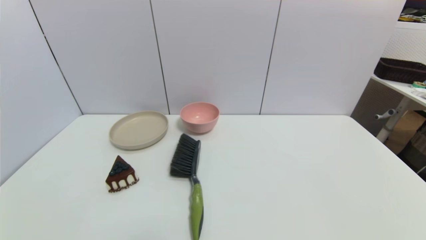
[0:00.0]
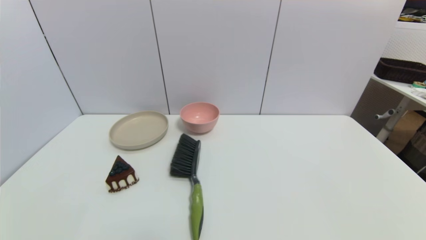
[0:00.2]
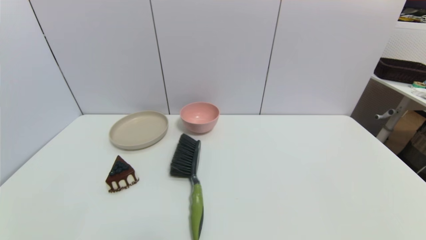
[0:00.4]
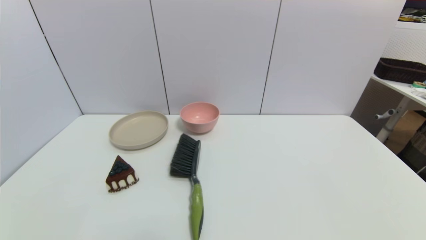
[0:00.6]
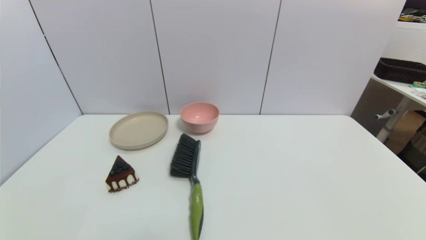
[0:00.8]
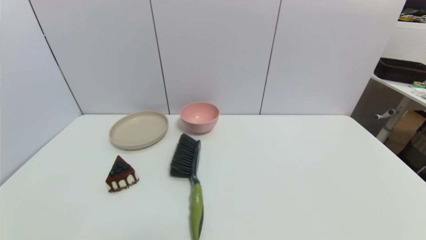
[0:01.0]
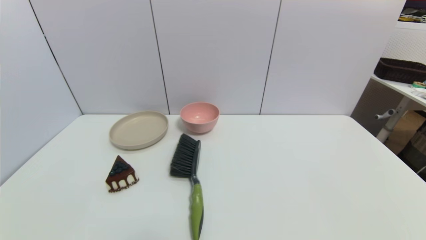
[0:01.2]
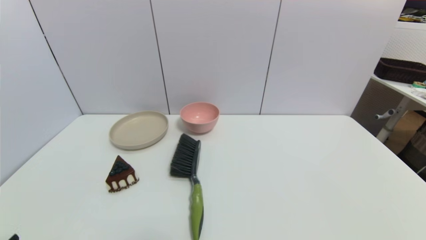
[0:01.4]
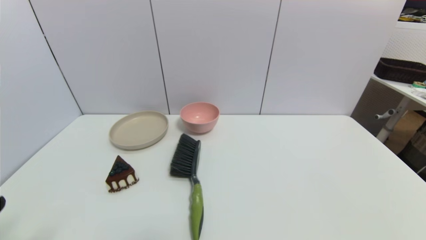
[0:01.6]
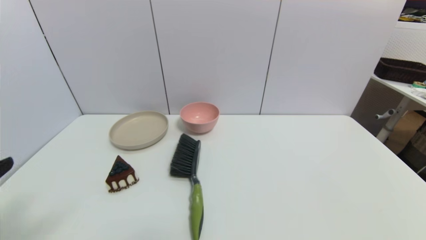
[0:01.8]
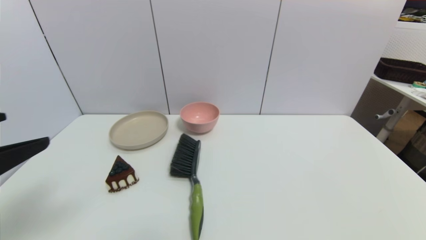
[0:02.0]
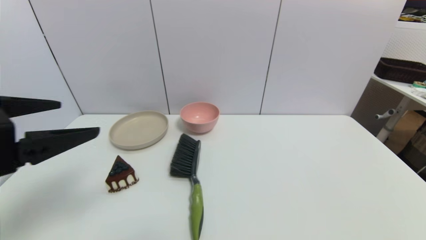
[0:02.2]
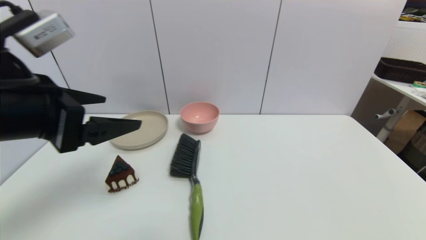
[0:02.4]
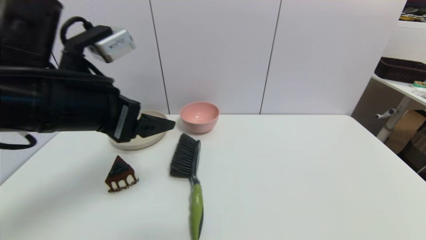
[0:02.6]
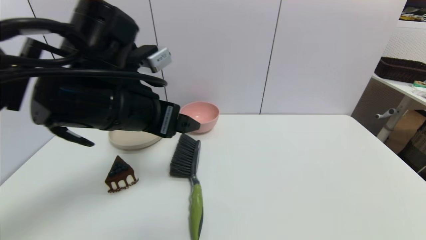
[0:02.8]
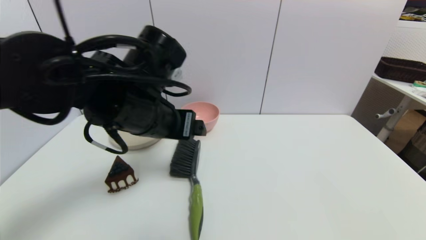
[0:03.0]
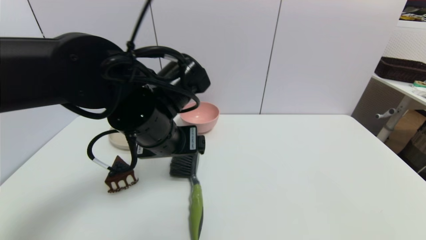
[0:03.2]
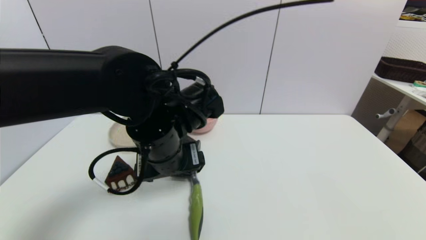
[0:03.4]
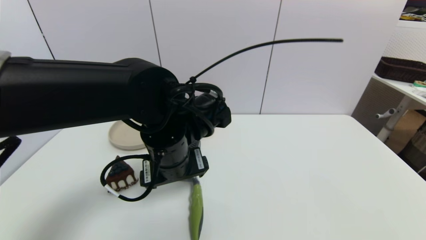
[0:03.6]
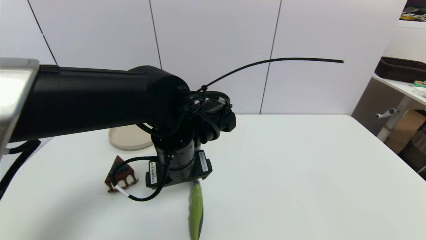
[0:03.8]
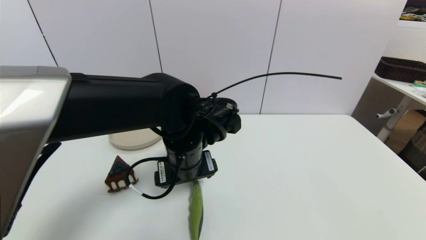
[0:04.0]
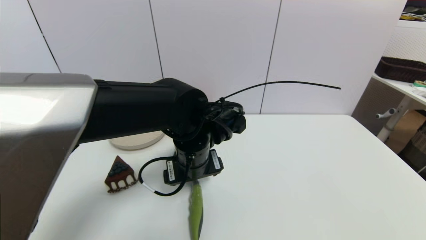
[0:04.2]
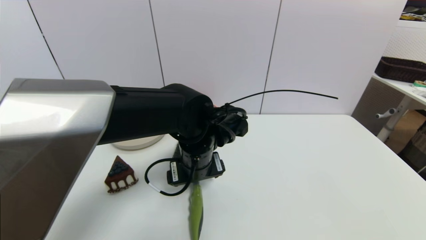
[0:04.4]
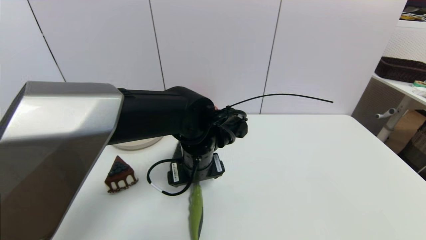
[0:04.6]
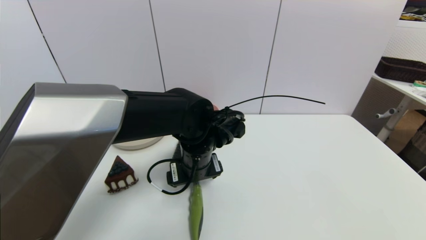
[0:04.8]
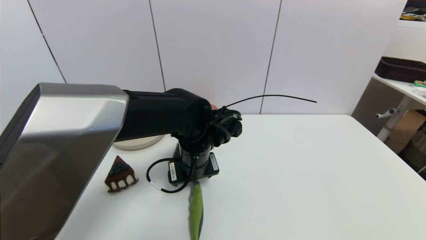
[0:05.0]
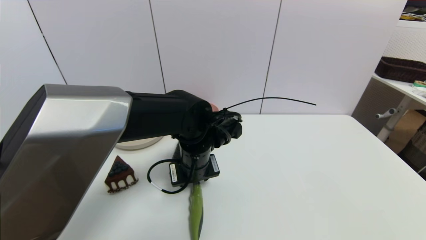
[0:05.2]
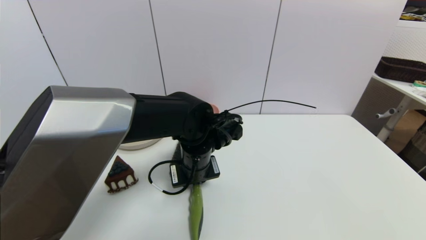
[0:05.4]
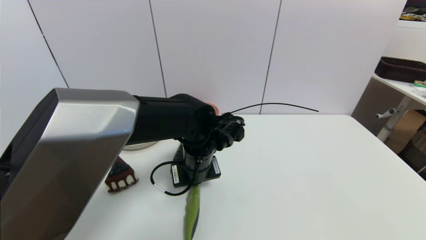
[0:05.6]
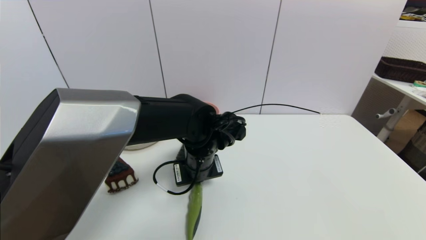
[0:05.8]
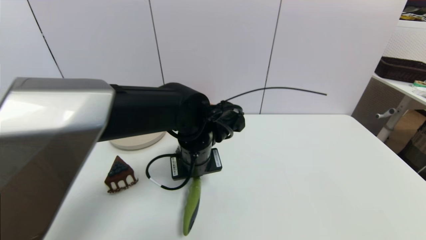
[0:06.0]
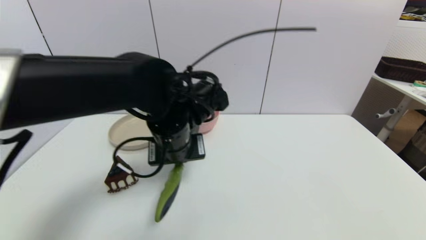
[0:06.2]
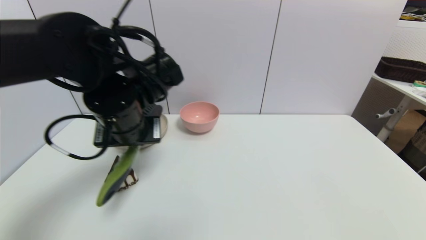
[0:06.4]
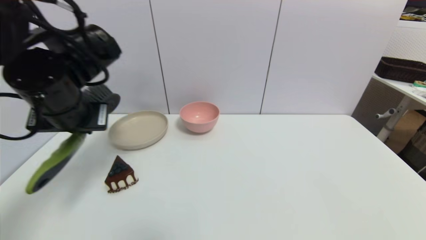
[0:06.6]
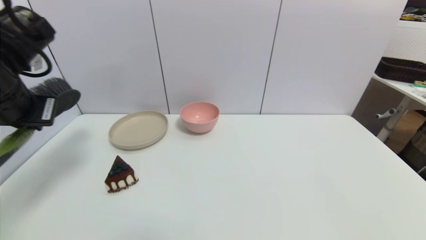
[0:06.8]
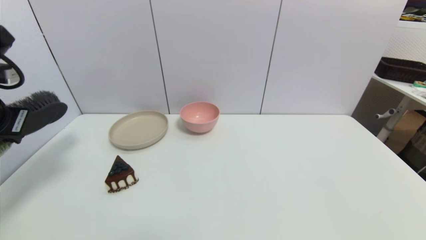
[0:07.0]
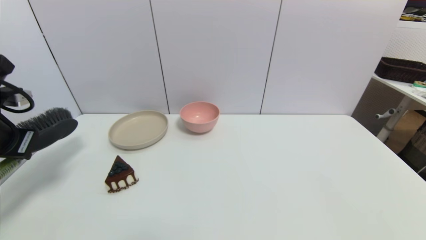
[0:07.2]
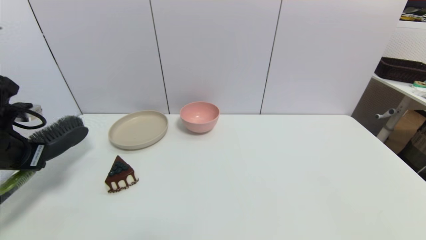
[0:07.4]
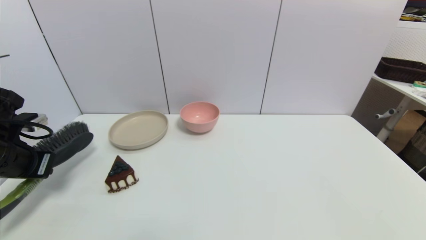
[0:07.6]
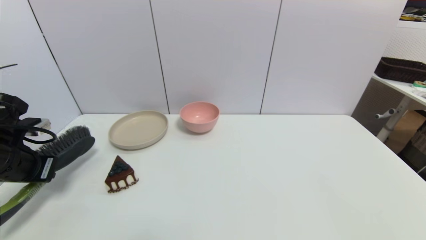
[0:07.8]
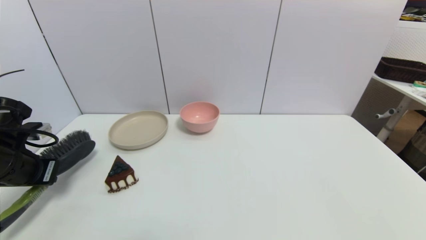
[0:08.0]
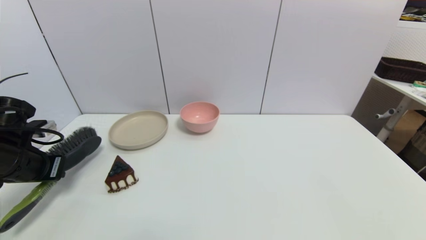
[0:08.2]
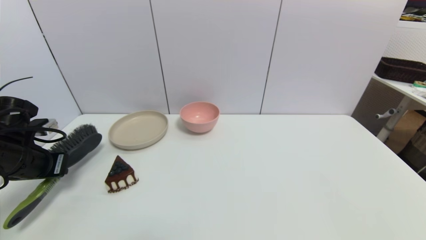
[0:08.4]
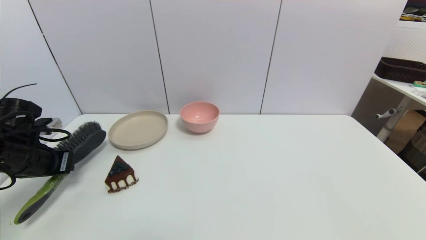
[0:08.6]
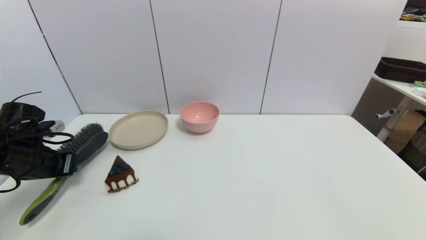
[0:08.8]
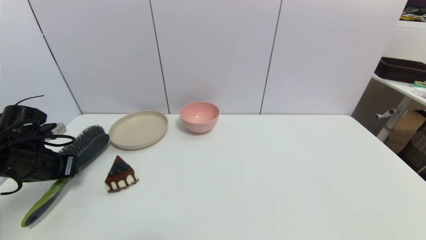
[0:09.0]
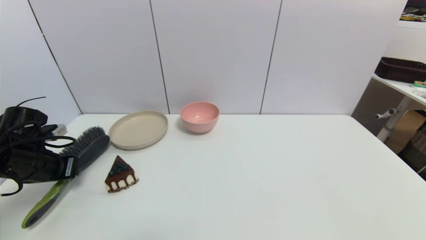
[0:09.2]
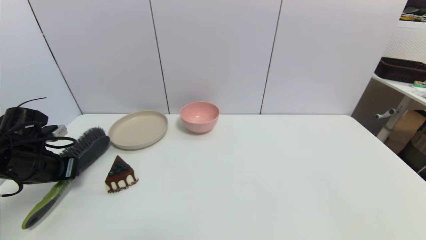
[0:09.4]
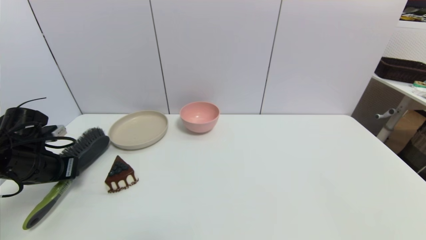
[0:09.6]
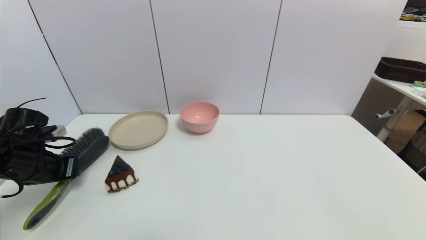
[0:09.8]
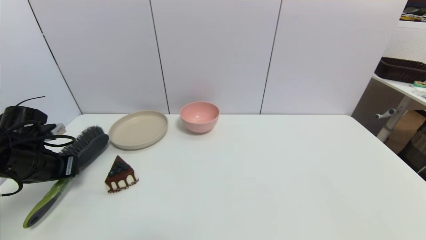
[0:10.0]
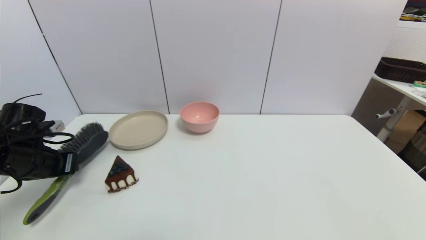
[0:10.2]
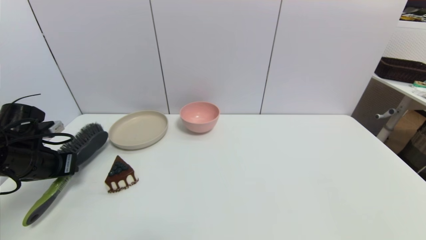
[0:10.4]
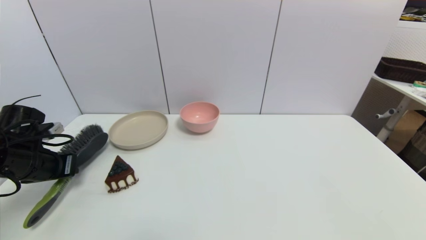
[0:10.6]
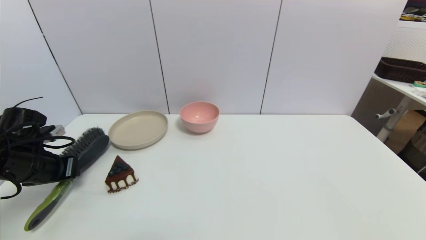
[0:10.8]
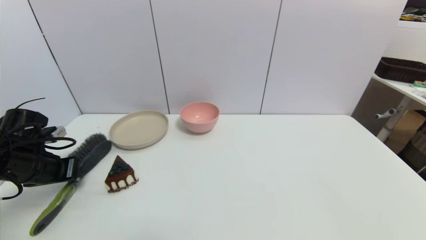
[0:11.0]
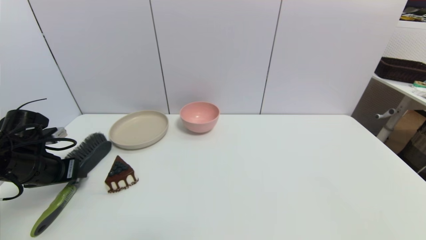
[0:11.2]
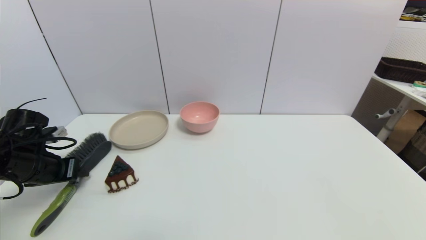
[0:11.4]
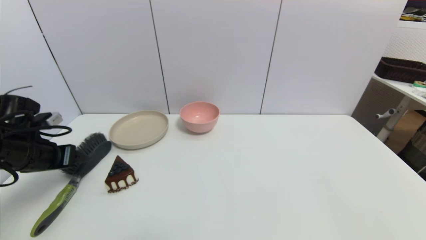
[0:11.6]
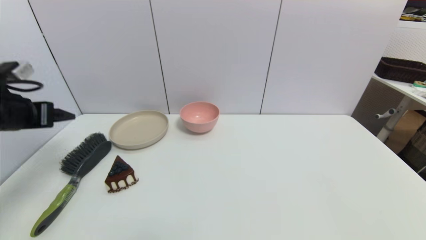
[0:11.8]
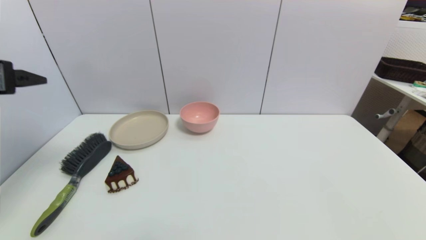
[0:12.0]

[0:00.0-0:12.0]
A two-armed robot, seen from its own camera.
Task of the whole recording: put the brush in the designated position.
Step, 0:01.4 to 0:05.4: Grasp the brush with left gripper.
Step, 0:05.8 to 0:11.2: Place the brush on the table with left gripper.
0:01.6 to 0:03.0: The left gripper travels forward and to the right by some 30 cm.
0:03.0 to 0:04.4: The left gripper goes roughly 15 cm downward and to the right.
0:04.4 to 0:06.0: The left gripper closes.
0:06.0 to 0:07.6: The left gripper heads to the left, covering roughly 30 cm.
0:07.6 to 0:09.0: The left gripper moves downward, some 5 cm.
0:09.0 to 0:10.4: Neither gripper changes place.
0:10.4 to 0:12.0: The left gripper goes approximately 20 cm upward, and opens up.

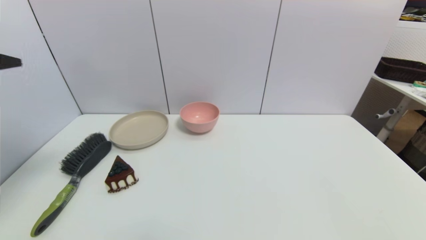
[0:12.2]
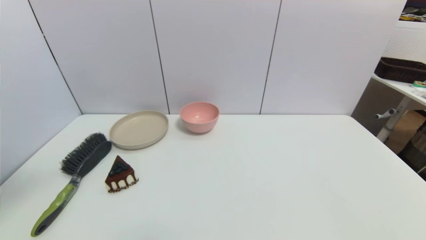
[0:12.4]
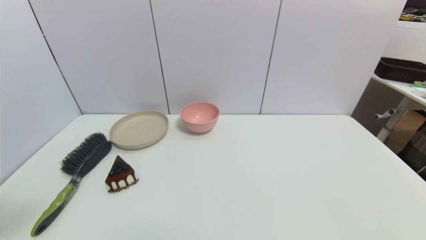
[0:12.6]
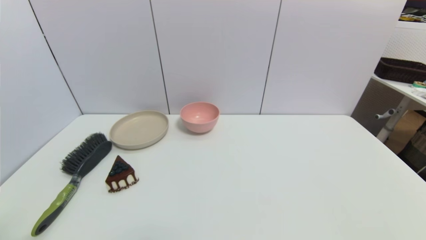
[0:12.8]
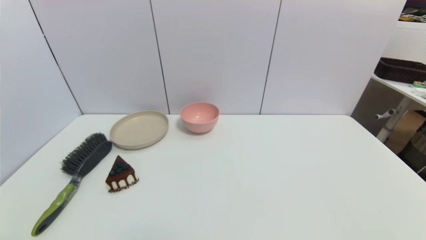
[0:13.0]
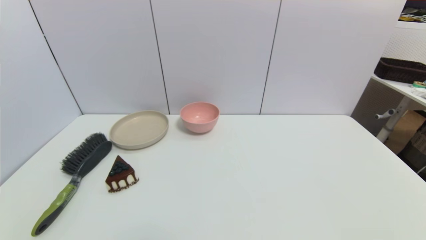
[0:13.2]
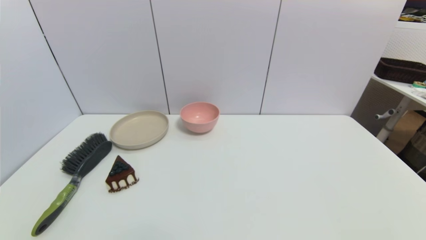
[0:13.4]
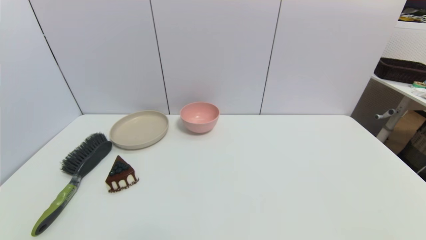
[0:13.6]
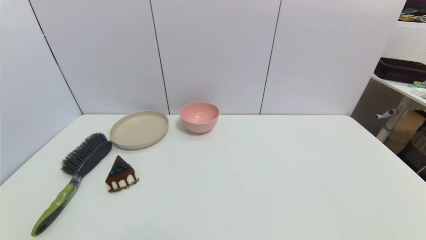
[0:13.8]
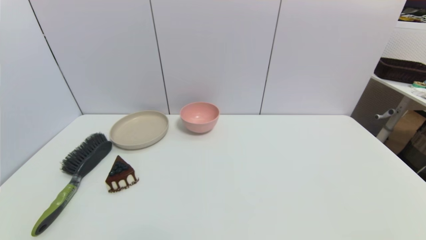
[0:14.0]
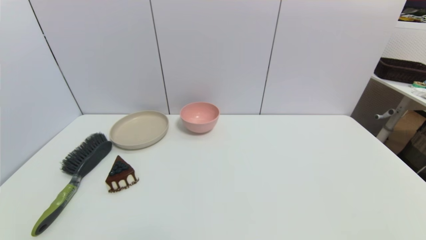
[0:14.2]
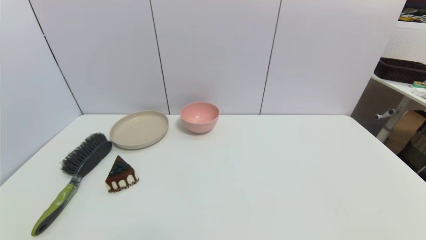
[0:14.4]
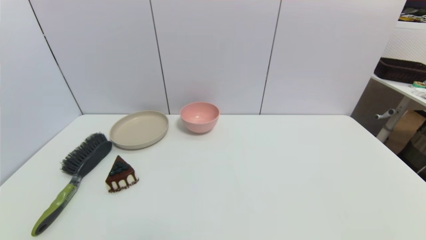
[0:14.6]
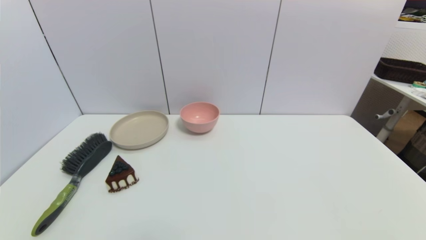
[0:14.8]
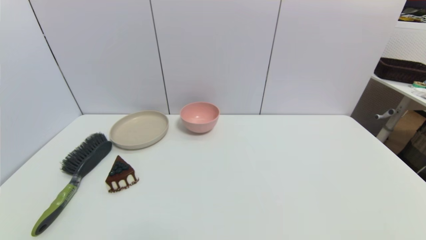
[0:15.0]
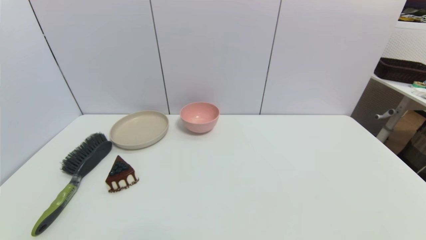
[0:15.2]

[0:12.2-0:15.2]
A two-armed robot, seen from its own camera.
Task of the whole recording: put the brush in the designated position.
0:12.2 to 0:13.8: The left gripper moves downward and backward, approximately 35 cm.
0:13.8 to 0:15.2: Neither gripper changes place.
